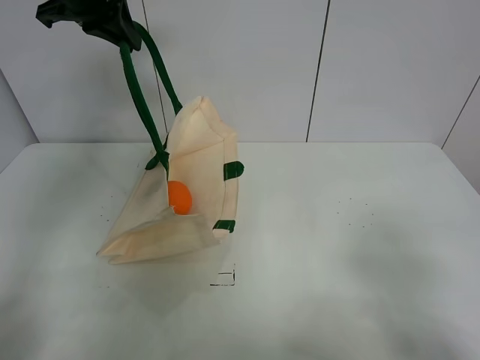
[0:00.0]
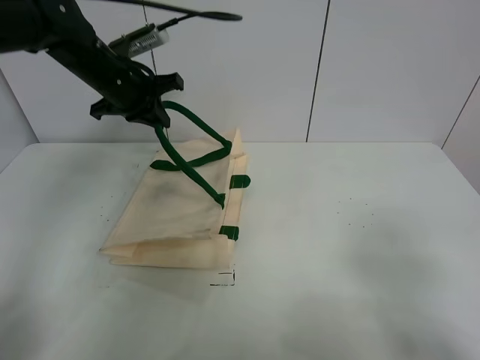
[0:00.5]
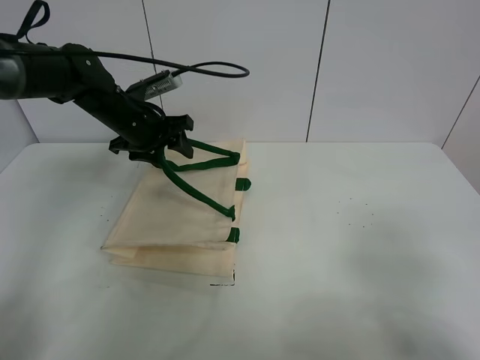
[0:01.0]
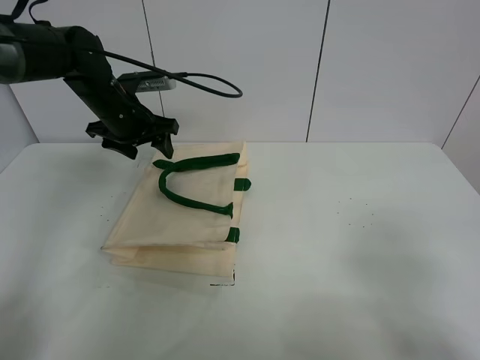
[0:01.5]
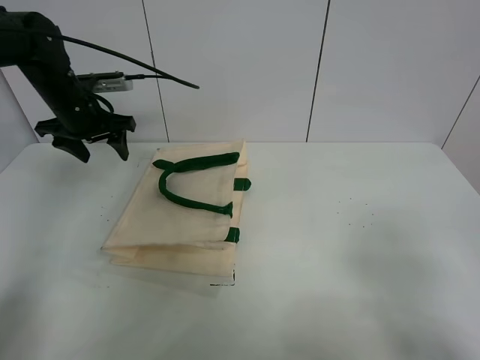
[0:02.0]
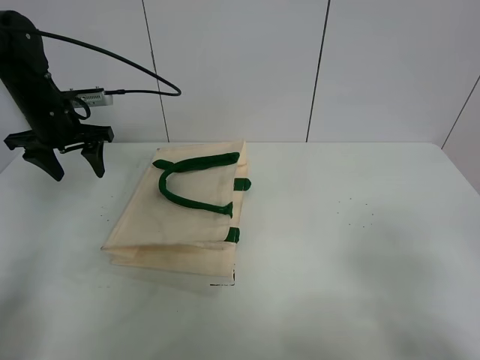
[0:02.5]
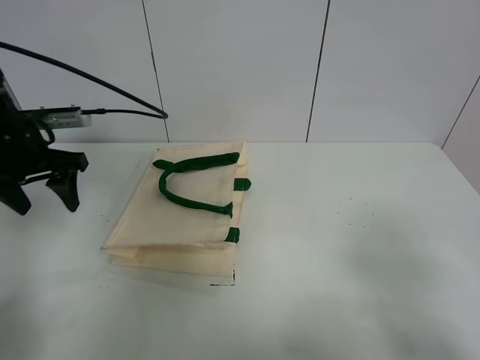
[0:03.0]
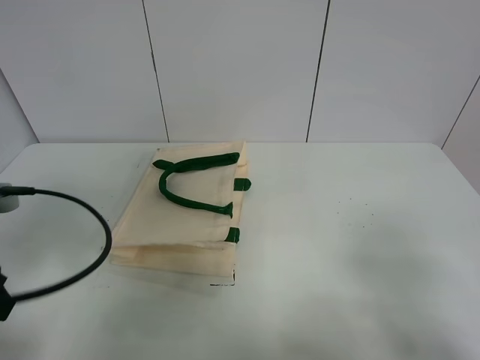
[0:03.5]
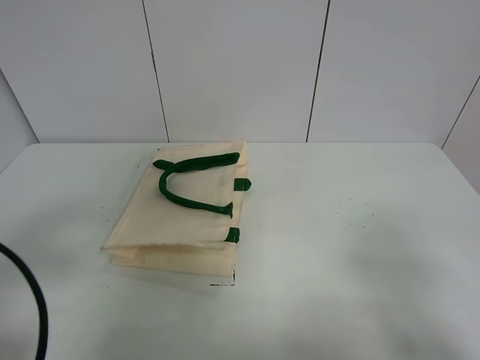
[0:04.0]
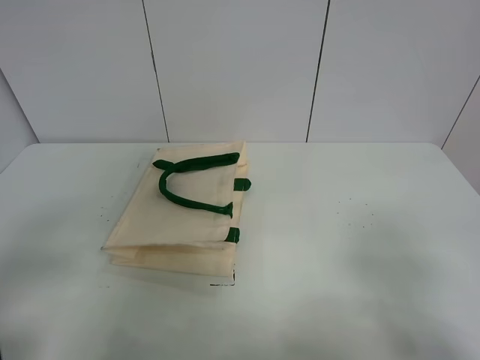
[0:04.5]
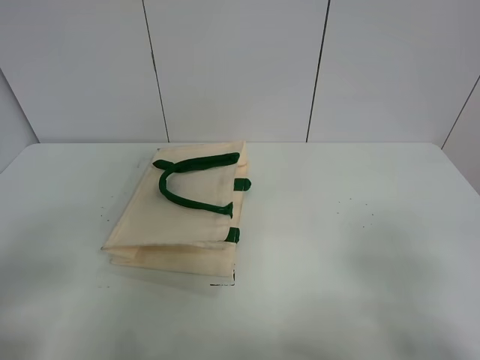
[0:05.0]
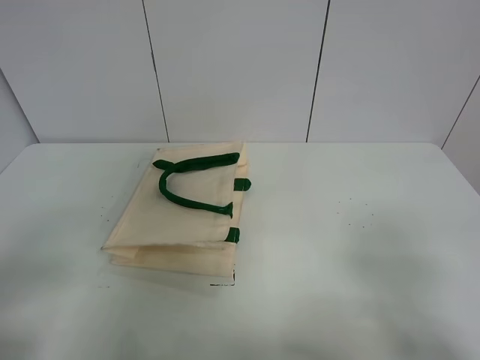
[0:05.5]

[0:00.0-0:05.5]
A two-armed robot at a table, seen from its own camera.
Task of the whole recording: open the white linen bag and put the orange in the bag.
0:00.0 to 0:02.0: The left gripper shifts about 20 cm downward and to the left, and opens.
0:02.0 to 0:03.5: The left gripper travels backward by some 30 cm.
0:03.5 to 0:05.5: The left gripper travels backward by roughly 15 cm.

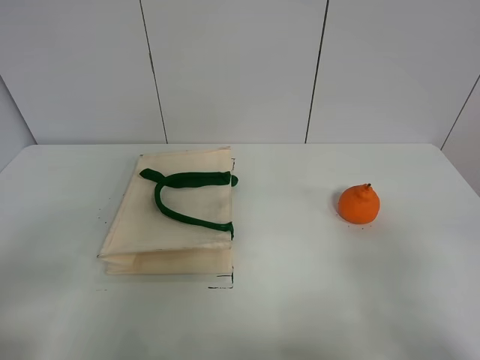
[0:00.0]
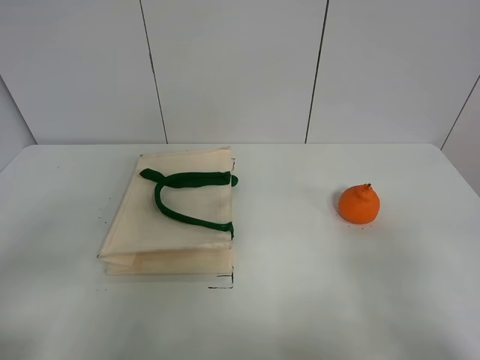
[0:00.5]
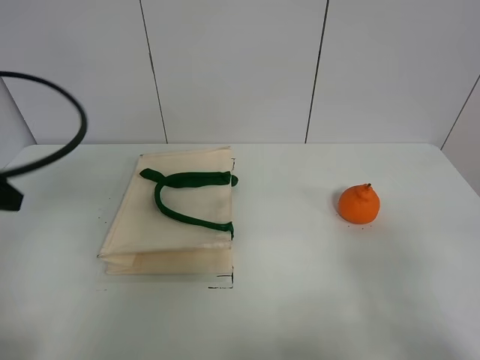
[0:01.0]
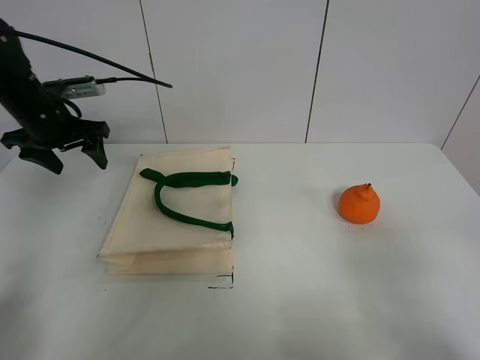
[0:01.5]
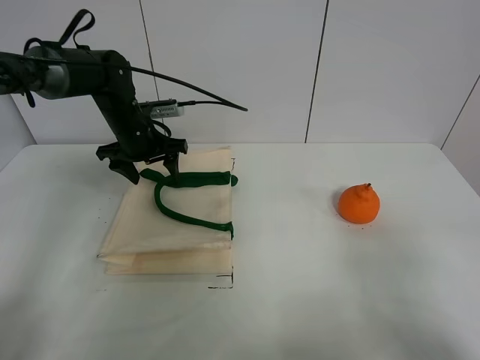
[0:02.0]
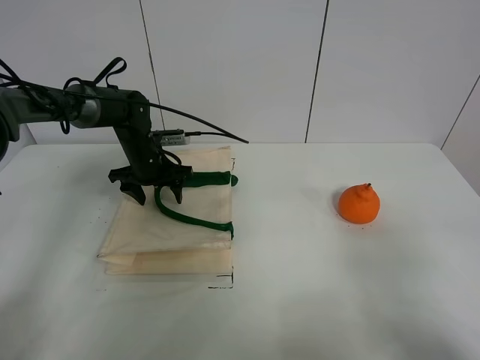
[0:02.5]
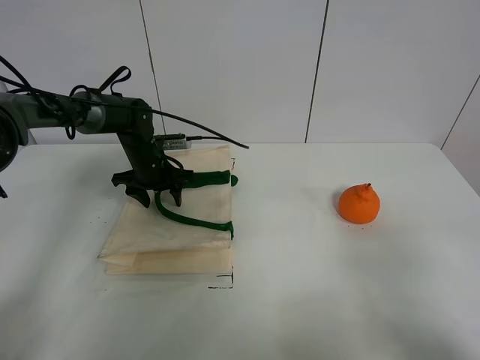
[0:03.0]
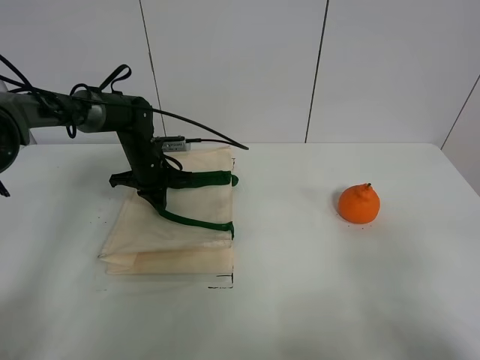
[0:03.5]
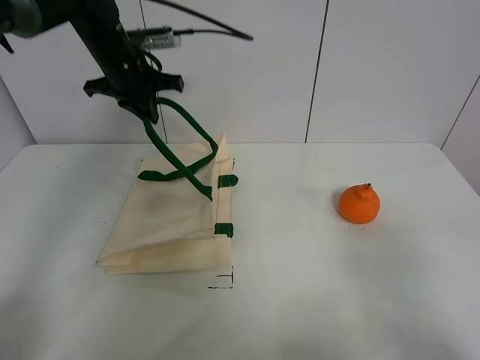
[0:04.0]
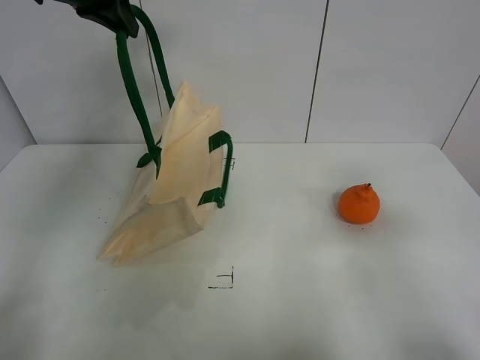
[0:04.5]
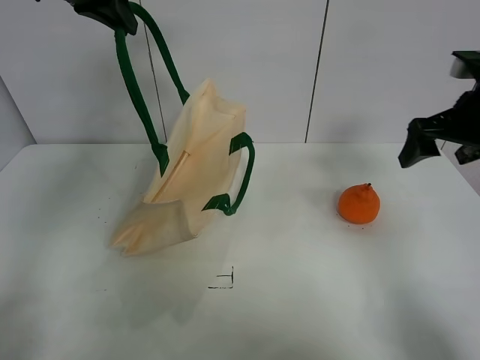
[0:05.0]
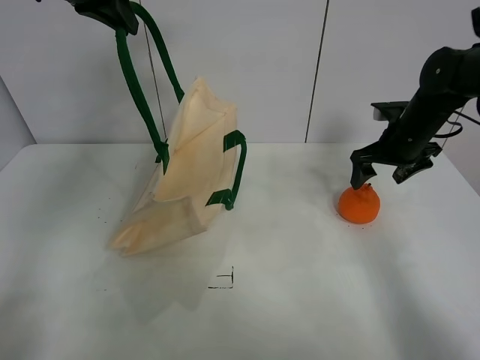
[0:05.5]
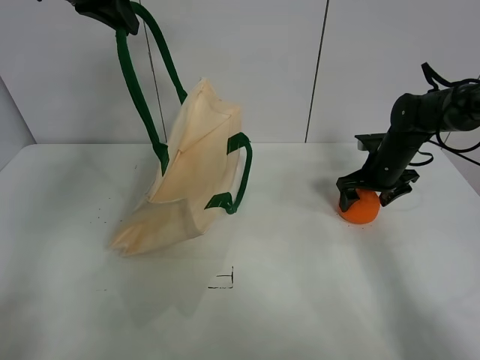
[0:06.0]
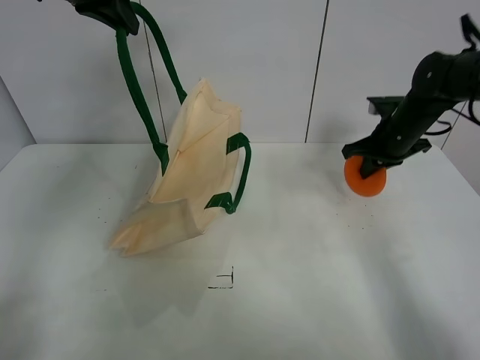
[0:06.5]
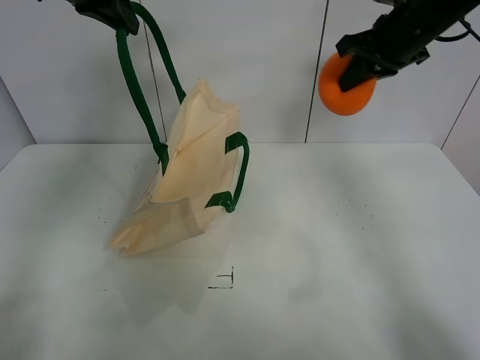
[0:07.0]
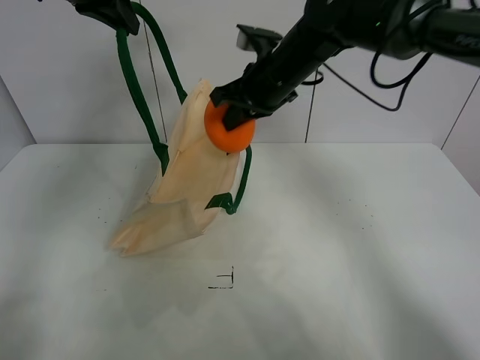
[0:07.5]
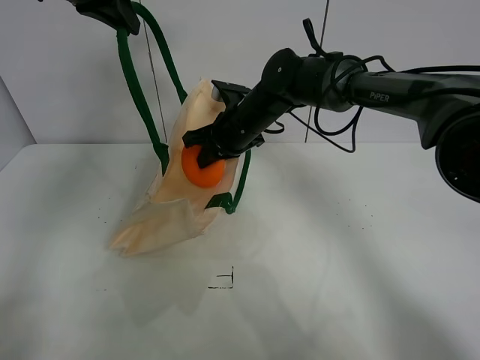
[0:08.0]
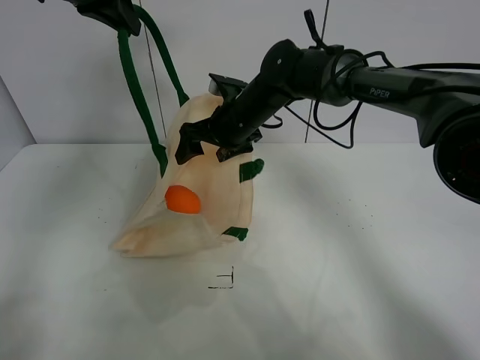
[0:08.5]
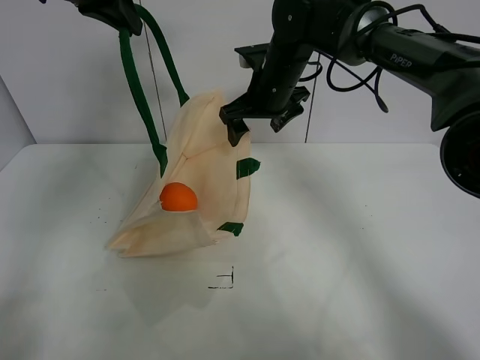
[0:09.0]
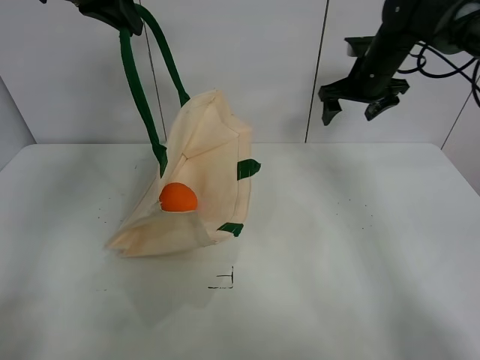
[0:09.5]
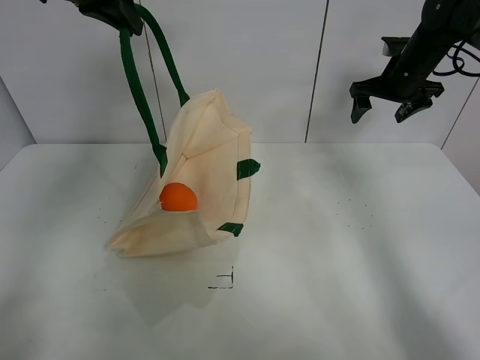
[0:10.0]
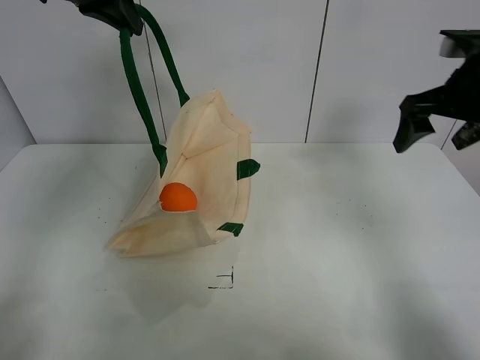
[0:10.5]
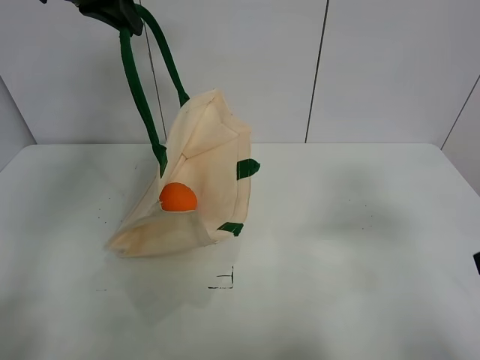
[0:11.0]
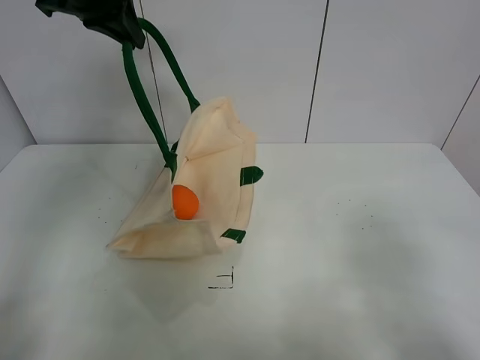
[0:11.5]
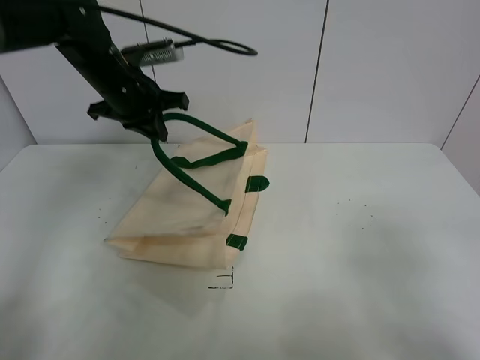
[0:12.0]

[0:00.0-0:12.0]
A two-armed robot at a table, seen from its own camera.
Task of the whole recording: open the white linen bag and put the orange in the bag.
Step, 0:00.0 to 0:04.0: Lift the handbag with left gripper.
Step, 0:04.5 to 0:06.0: Grasp the orange with right gripper.
Step, 0:06.5 to 0:08.5: Place the orange in the handbag with right gripper.
0:00.0 to 0:02.0: The left gripper goes roughly 40 cm forward.
0:02.0 to 0:04.0: The left gripper goes some 15 cm upward, and closes.
0:04.0 to 0:06.0: The right gripper goes approximately 40 cm forward, while the left gripper travels upward and backward by some 15 cm.
0:06.0 to 0:08.0: The right gripper moves to the left, roughly 25 cm, and closes its fingers.
0:08.0 to 0:10.0: The right gripper heads to the right, covering about 25 cm, and opens up.
0:10.0 to 0:12.0: The right gripper shifts about 50 cm backward; the left gripper heads downward, covering about 20 cm.

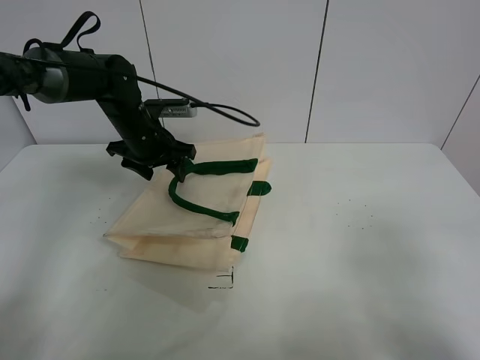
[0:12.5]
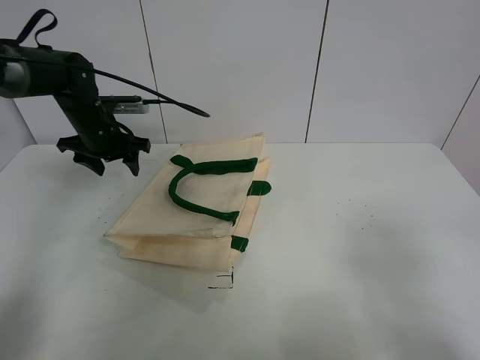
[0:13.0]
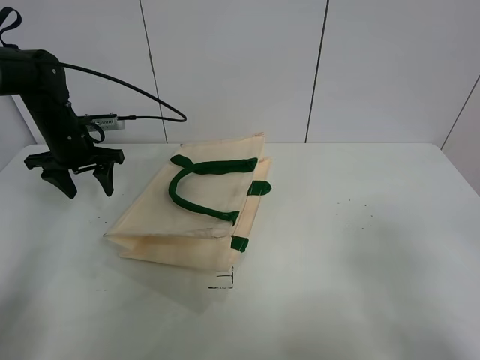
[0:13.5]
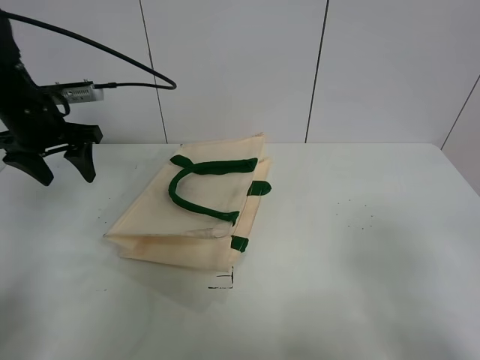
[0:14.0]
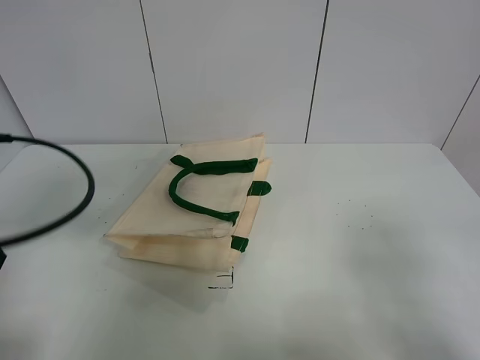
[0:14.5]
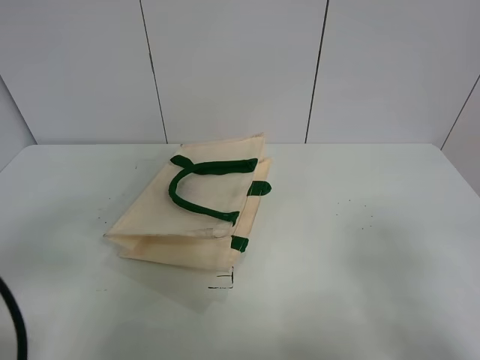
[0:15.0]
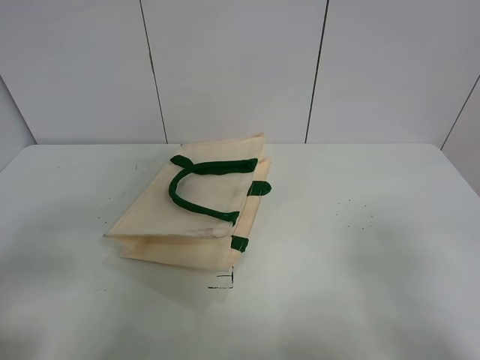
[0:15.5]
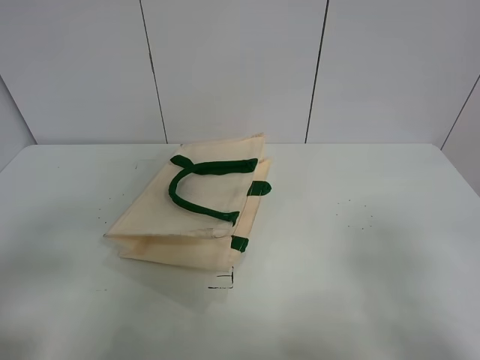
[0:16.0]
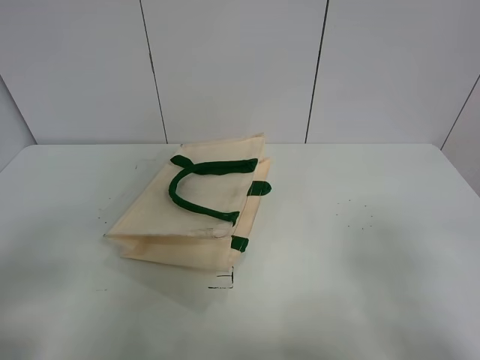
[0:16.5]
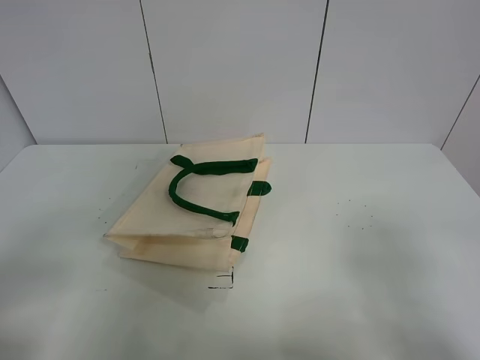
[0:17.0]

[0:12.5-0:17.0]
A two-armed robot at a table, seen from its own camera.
Task of the whole recording: open the white linen bag and put the orange in the bag.
0:12.5 to 0:14.5: The left gripper goes roughly 30 cm backward and to the left.
0:14.5 to 0:17.0: The left gripper moves backward, roughly 15 cm.
